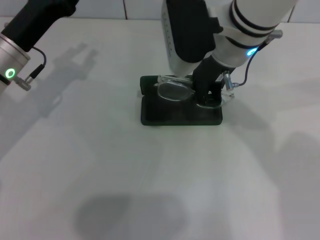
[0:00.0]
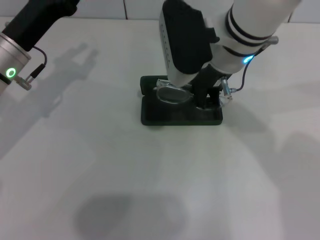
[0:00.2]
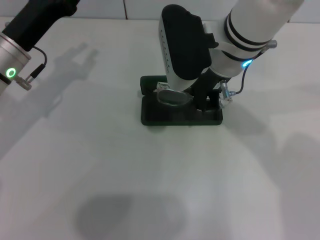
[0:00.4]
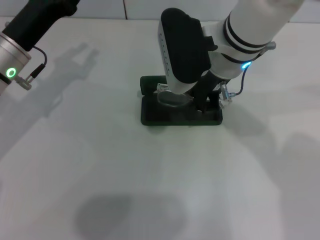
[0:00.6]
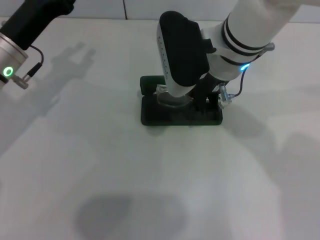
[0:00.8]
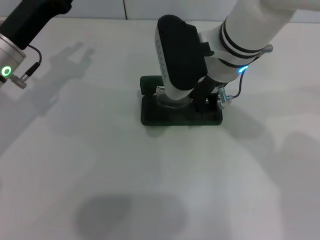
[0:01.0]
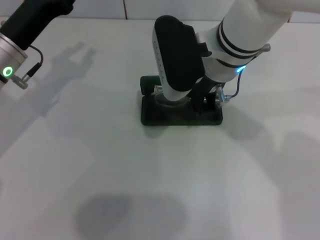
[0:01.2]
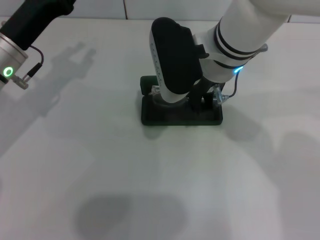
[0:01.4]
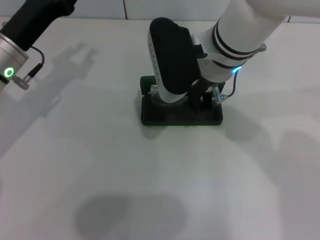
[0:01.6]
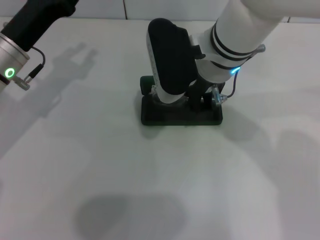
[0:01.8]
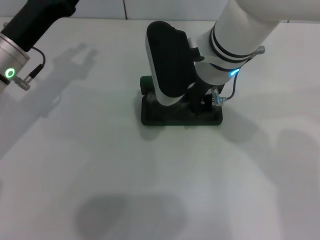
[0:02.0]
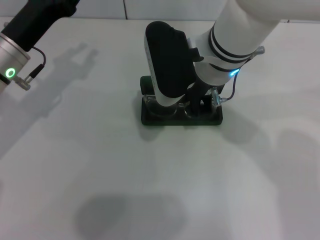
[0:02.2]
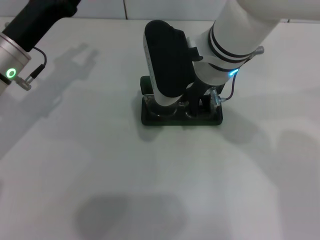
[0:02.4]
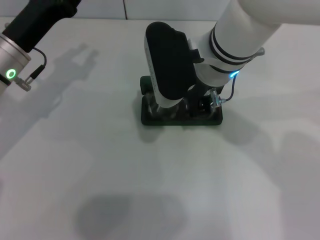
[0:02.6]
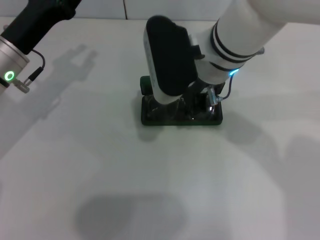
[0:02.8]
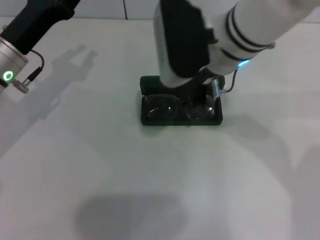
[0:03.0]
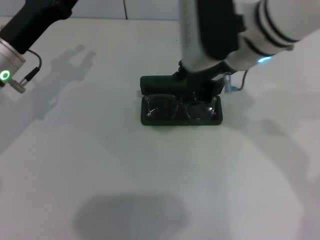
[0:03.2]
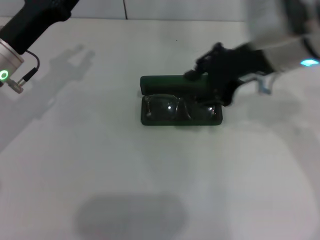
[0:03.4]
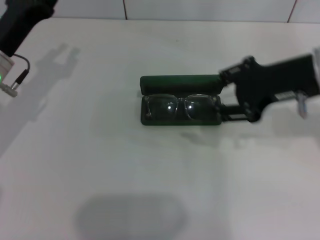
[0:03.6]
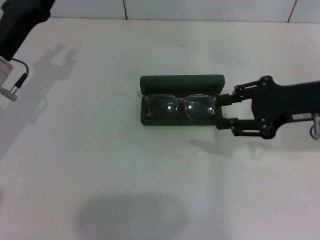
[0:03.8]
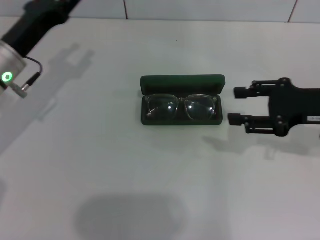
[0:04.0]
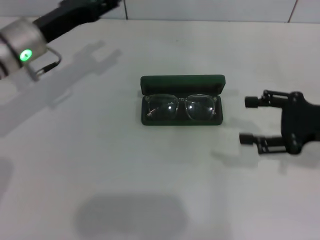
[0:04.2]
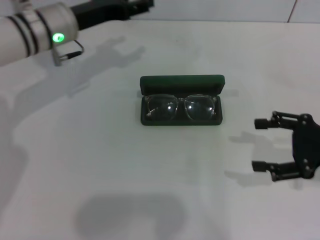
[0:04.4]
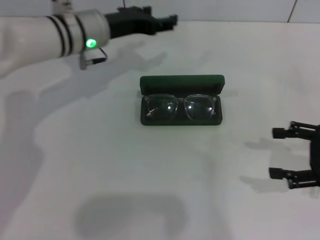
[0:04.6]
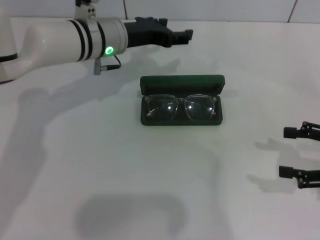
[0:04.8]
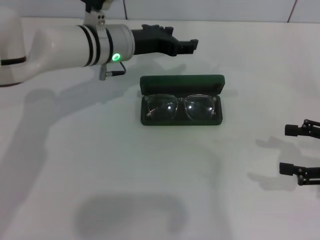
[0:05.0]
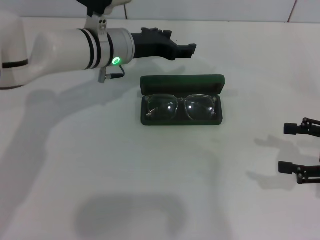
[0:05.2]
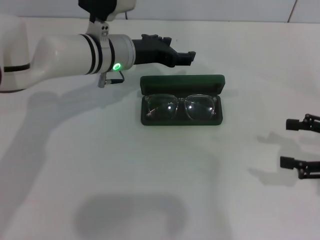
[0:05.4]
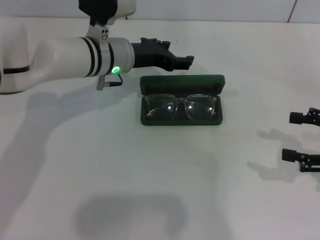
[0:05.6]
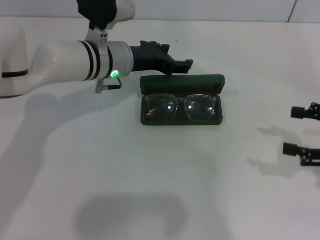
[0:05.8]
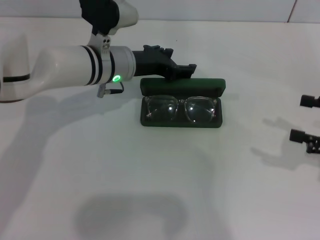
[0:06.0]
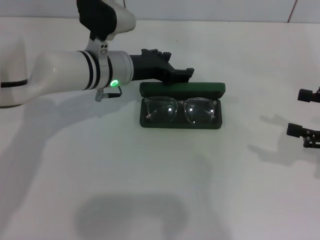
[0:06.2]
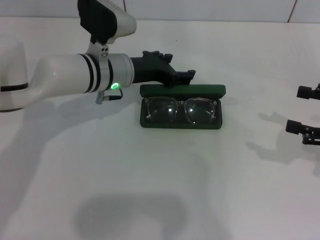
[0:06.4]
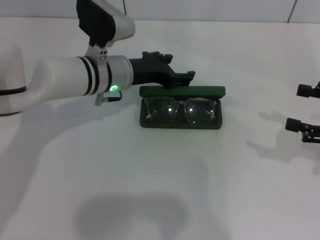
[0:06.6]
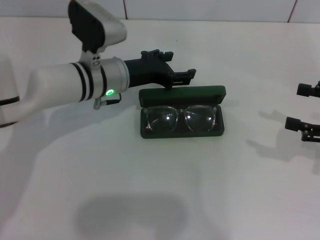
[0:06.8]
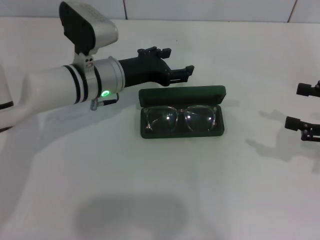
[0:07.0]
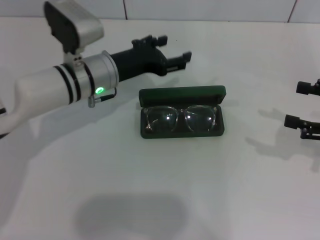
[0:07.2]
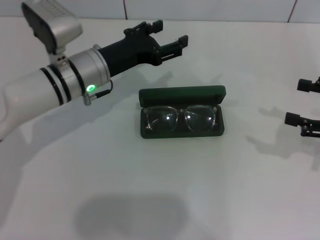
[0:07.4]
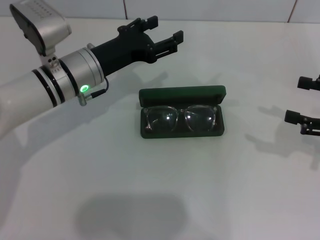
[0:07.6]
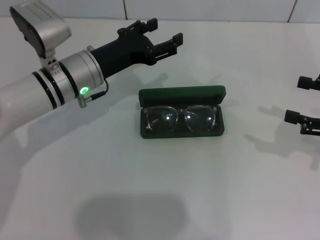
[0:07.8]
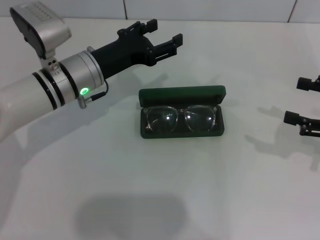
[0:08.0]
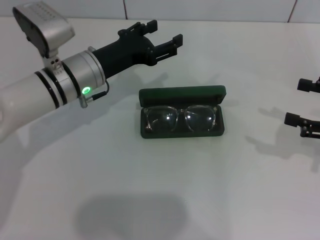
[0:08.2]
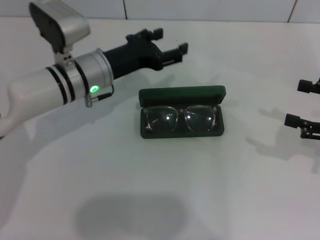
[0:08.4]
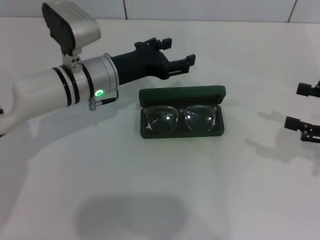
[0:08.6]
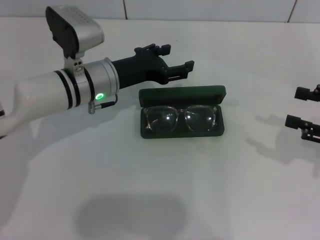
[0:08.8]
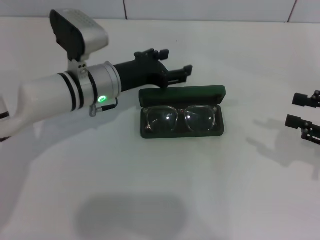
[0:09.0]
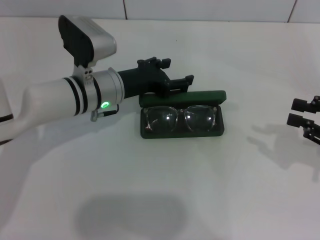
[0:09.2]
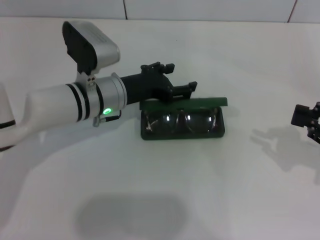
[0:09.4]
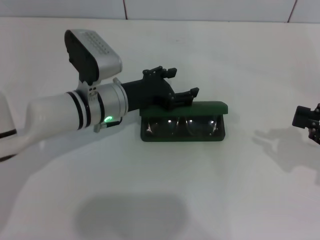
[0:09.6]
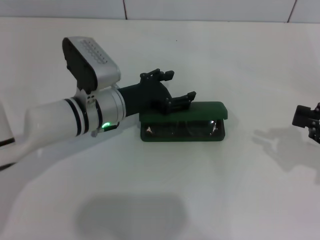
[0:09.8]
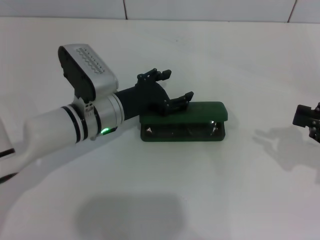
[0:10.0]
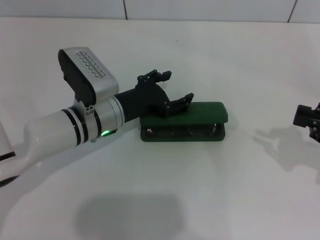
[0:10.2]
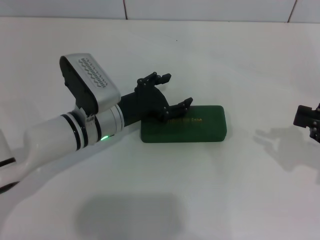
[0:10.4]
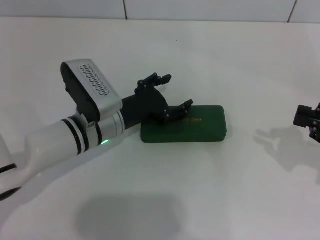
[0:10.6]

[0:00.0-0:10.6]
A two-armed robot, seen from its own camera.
Step, 0.0 to 3.2 s: Put the glasses into the case with your right hand.
Step, 3.6 to 10.4 s: Close the glasses case with your left hand.
0.0 to 1.6 s: The grippers move only a little.
1.6 to 3.0 s: The right gripper opens up.
3.0 to 4.6 s: The right gripper shifts approximately 30 cm to the right and downward, and opens up. Meanwhile the left gripper goes about 15 cm to the right and forward, and opens.
4.6 to 6.0 s: The left gripper ends up some 5 cm from where it was.
6.0 to 7.6 s: The left gripper ends up about 5 cm from where it was.
7.6 to 9.0 s: There are only small adjustments of the grippers.
9.0 to 10.6 s: The left gripper goes approximately 5 cm backward. The right gripper closes up.

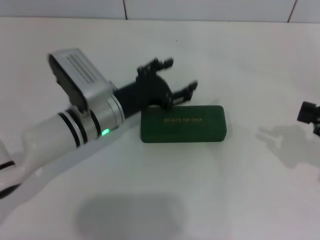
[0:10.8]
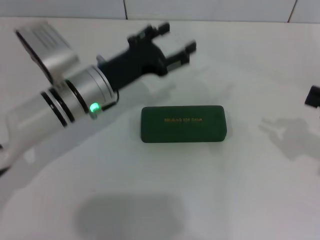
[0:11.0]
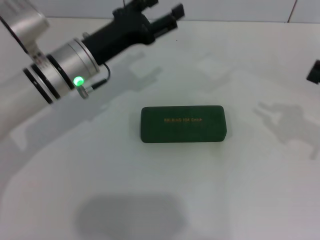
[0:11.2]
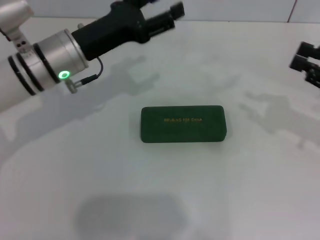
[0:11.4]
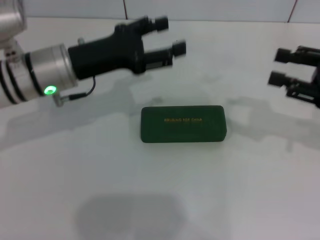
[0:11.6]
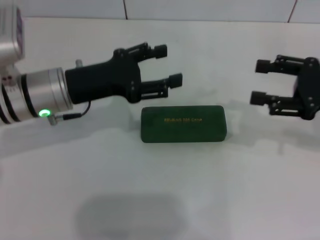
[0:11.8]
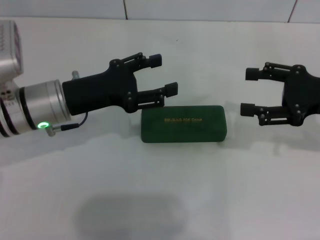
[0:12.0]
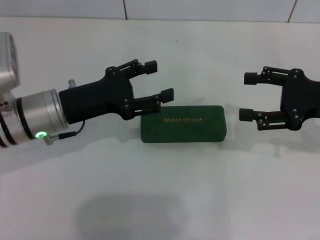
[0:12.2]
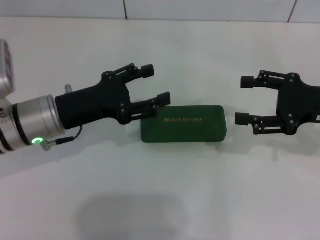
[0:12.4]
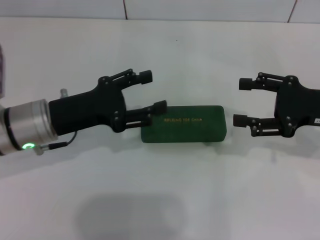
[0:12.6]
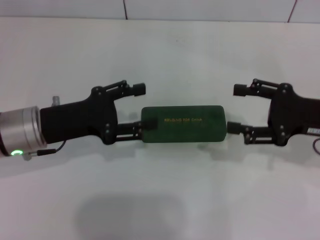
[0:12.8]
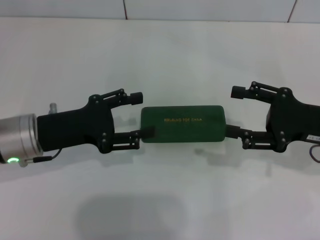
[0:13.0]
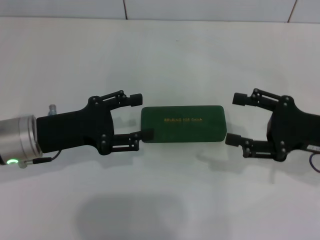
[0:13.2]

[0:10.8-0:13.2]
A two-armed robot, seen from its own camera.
10.8 to 12.0 s: The left gripper travels to the left and upward by about 10 cm. Meanwhile the right gripper goes some 10 cm to the left and forward, and opens.
12.0 to 13.2 s: The right gripper ends up some 5 cm from where it was; the left gripper shifts by roughly 5 cm.

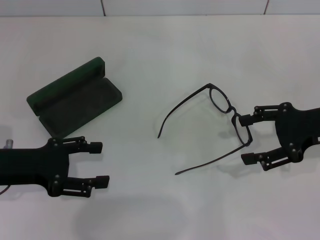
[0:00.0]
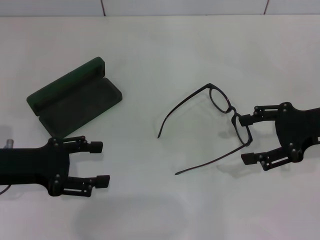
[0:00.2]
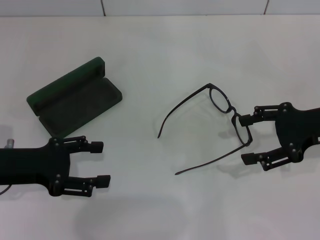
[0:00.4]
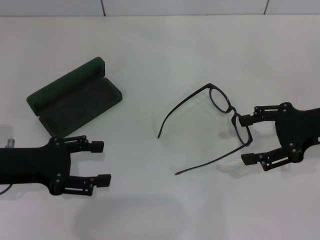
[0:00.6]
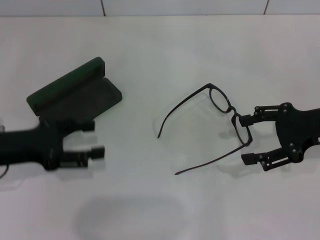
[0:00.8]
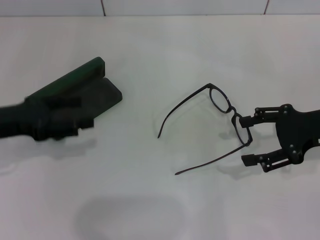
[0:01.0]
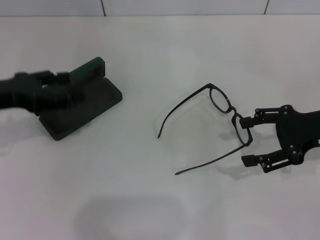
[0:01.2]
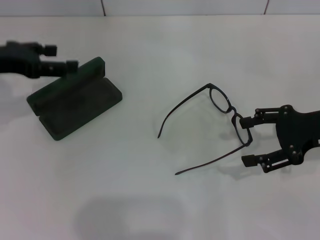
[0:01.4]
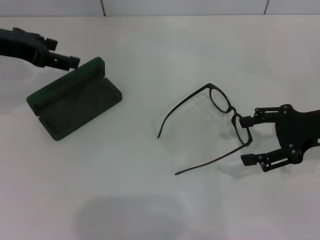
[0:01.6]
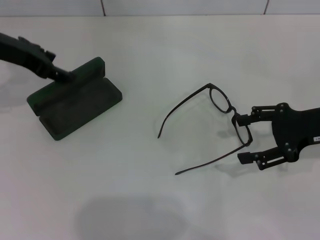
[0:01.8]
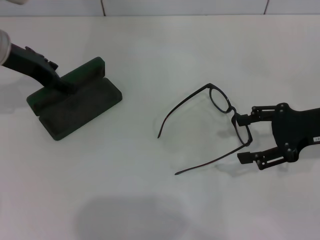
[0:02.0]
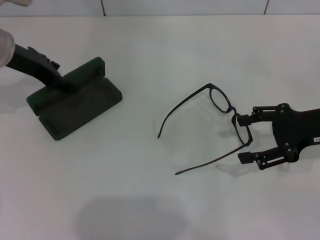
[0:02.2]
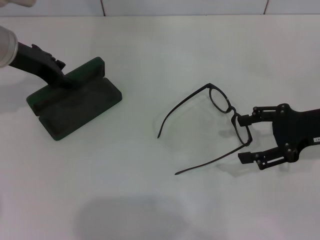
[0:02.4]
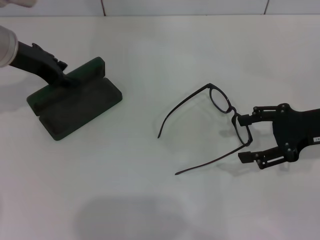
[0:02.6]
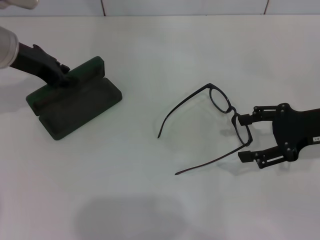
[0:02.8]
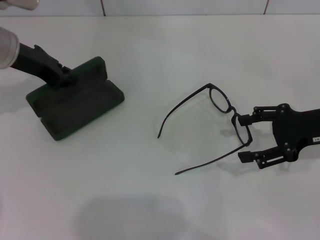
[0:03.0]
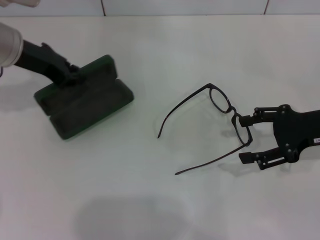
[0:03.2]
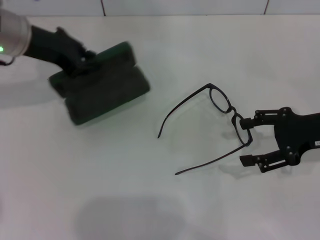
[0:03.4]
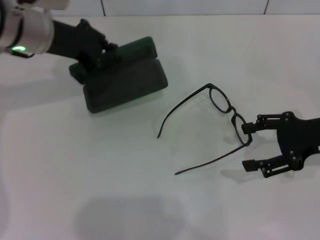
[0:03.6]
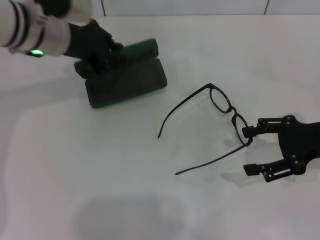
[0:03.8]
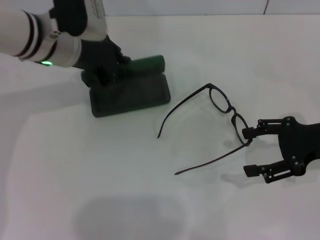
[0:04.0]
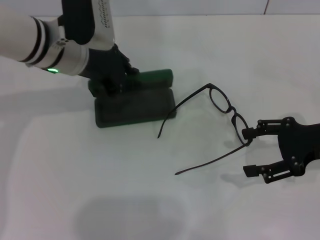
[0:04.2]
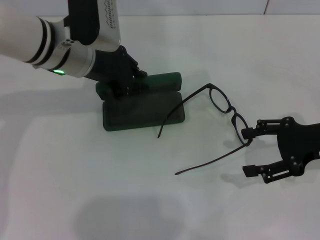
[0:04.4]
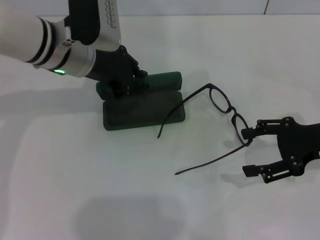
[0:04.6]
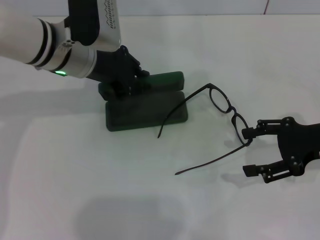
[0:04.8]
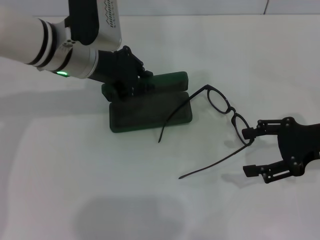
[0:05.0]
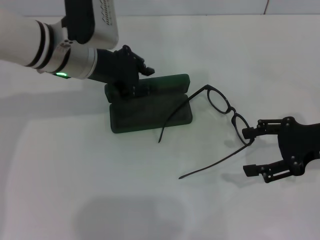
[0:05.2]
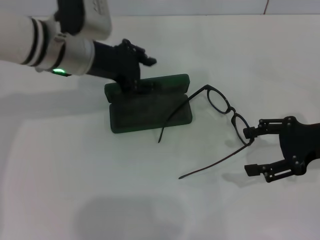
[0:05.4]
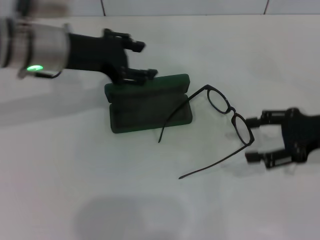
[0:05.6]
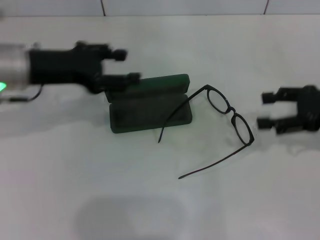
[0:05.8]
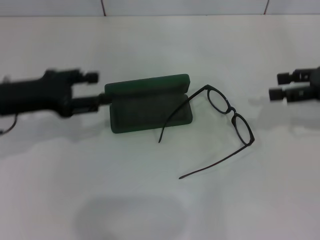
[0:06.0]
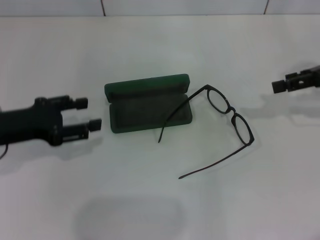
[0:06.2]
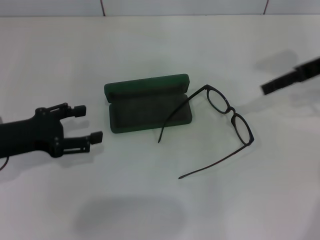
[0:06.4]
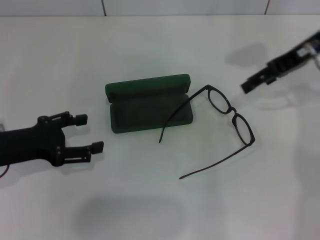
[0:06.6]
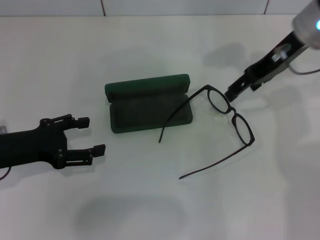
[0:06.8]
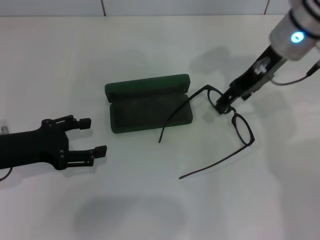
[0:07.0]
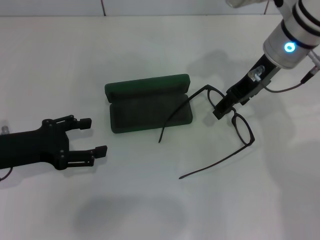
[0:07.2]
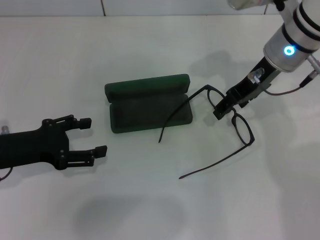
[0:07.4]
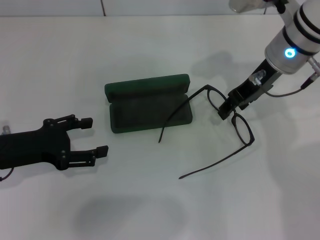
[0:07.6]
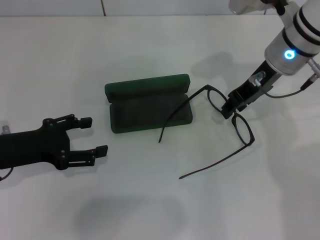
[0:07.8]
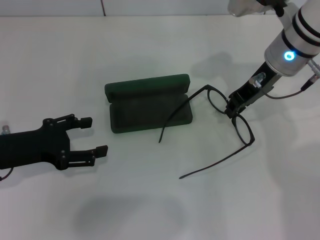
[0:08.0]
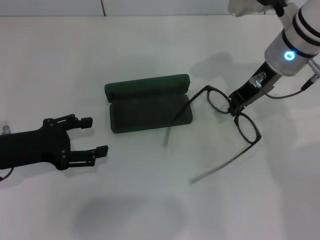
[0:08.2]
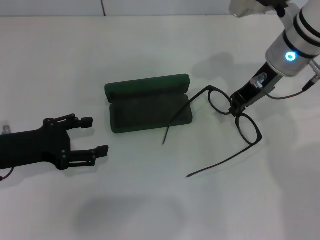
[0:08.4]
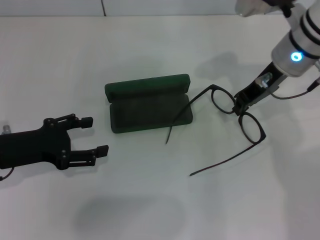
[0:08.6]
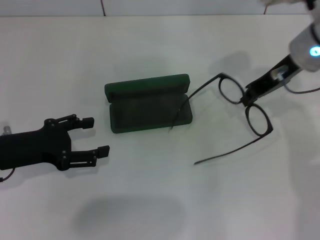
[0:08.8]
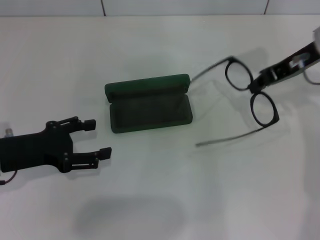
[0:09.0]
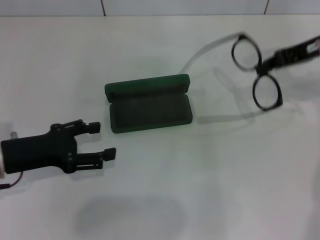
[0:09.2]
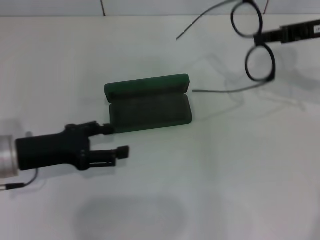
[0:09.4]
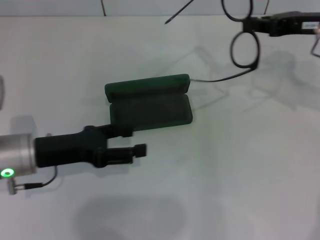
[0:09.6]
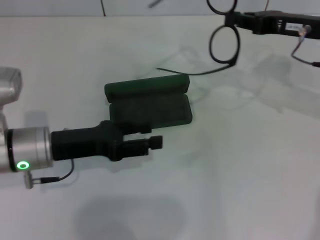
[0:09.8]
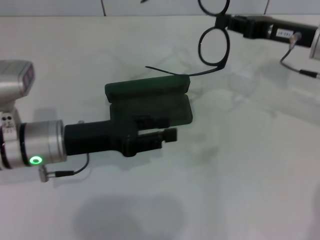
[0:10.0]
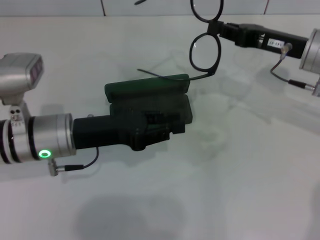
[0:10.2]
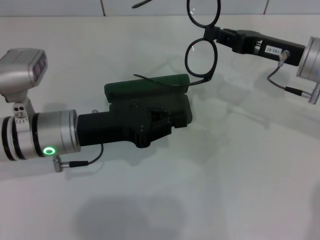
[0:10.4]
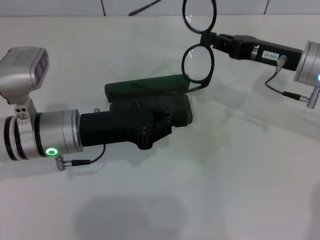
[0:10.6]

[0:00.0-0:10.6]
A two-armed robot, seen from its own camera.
Step, 0.0 to 2.8 s: Grab the glasses case with your left hand.
Step, 3.0 to 5.2 s: Place the glasses case in the center of the table with your left hand.
Step, 5.4 to 8.2 s: Grab the eyeglass frame with your right hand.
0.0 to 1.6 s: The left gripper moves forward and upward, roughly 15 cm.
1.6 to 3.0 s: The left gripper shifts by about 5 cm, and closes its fingers.
3.0 to 4.6 s: The left gripper is displaced to the right by some 10 cm.
4.6 to 6.0 s: The left gripper heads to the left and backward, covering some 15 cm, and opens its fingers; the right gripper is displaced upward by roughly 5 cm.
6.0 to 7.6 s: The right gripper moves to the left, about 15 cm; the left gripper is displaced downward by about 5 cm.
7.6 to 9.0 s: The right gripper moves to the right, approximately 5 cm, and closes up.
9.0 to 10.6 s: The left gripper travels to the right by approximately 10 cm, and closes. The right gripper shifts roughly 5 cm downward.
